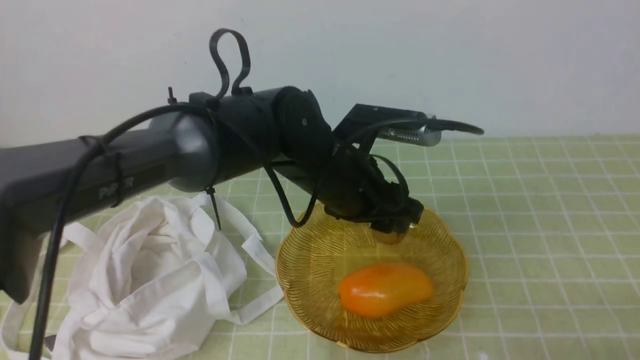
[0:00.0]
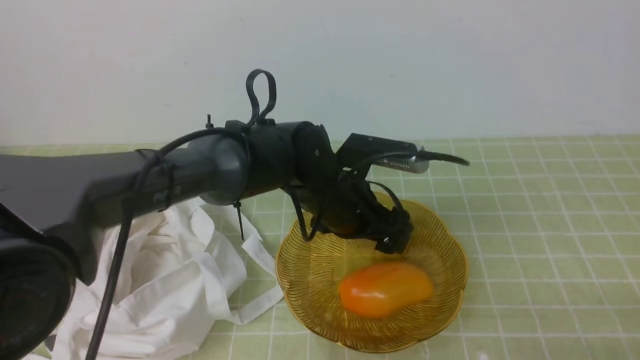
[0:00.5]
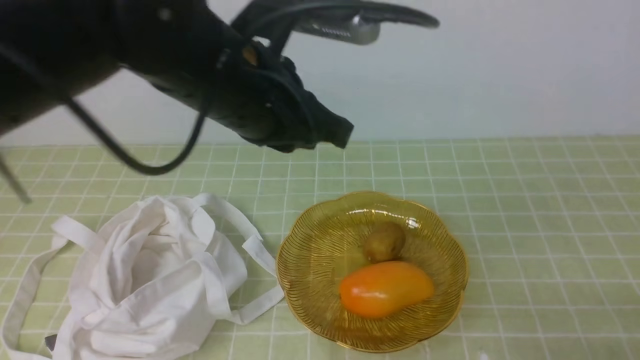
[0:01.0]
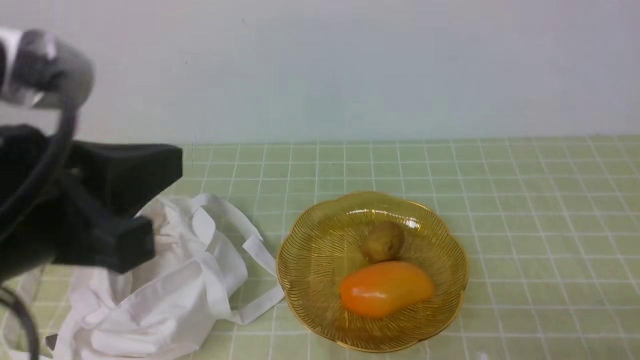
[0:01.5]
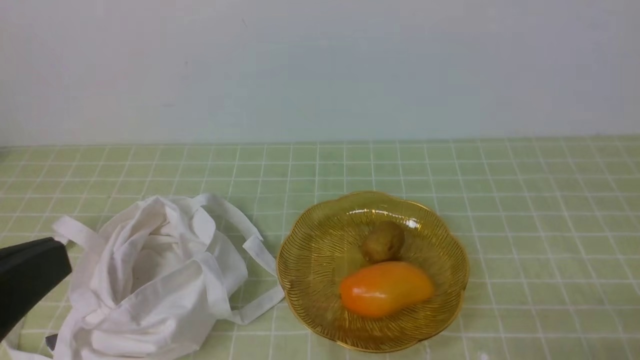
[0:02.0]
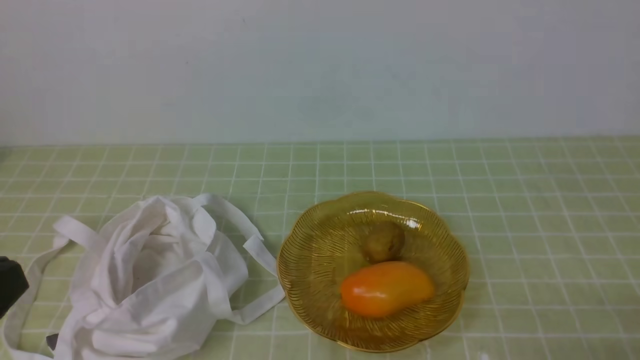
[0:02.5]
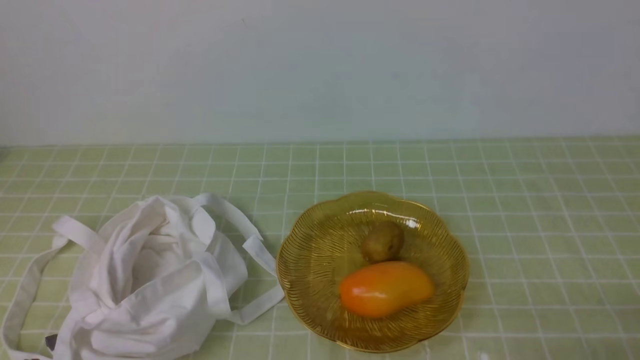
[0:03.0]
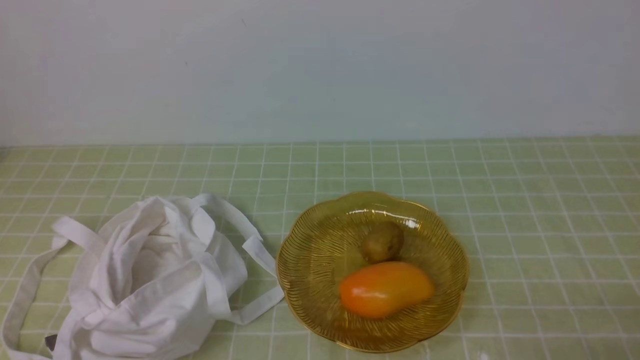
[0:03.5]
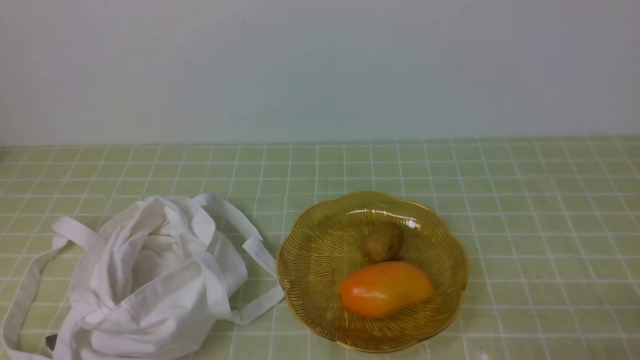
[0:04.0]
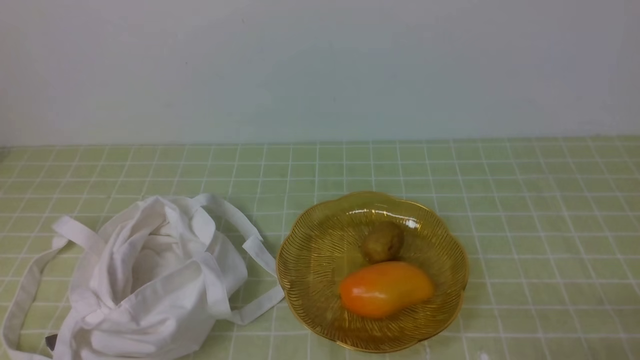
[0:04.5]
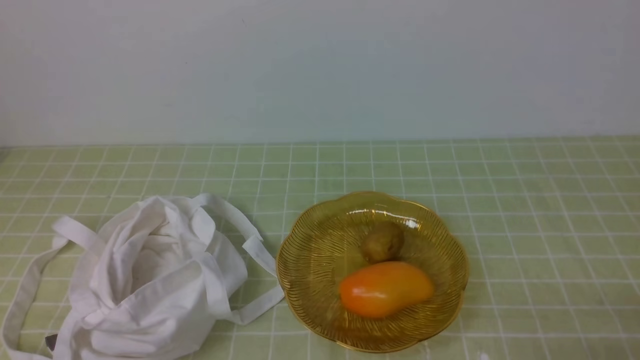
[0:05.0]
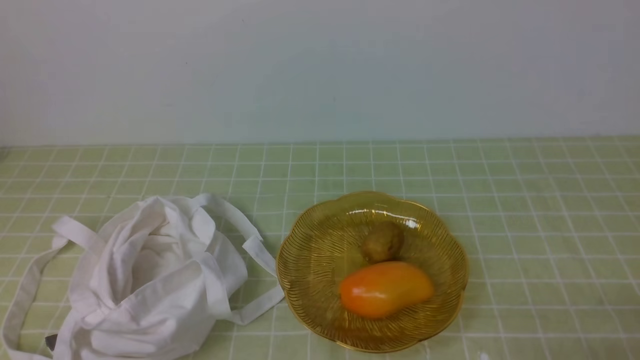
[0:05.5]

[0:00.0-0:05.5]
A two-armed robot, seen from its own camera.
0:00.0 to 0:02.0: The left gripper is displaced backward, to the left and upward by about 40 cm, and closes up.
0:02.0 to 0:03.5: The left gripper heads downward, covering approximately 20 cm.
0:03.5 to 0:05.5: Neither gripper changes place.

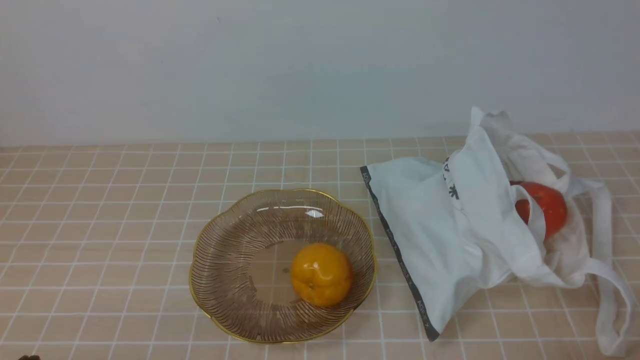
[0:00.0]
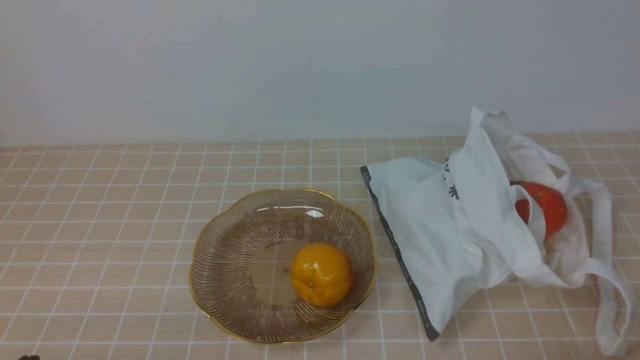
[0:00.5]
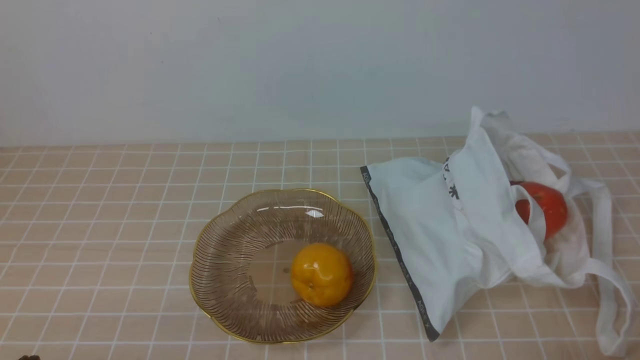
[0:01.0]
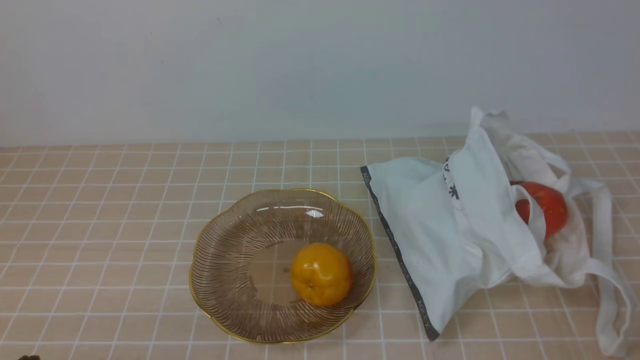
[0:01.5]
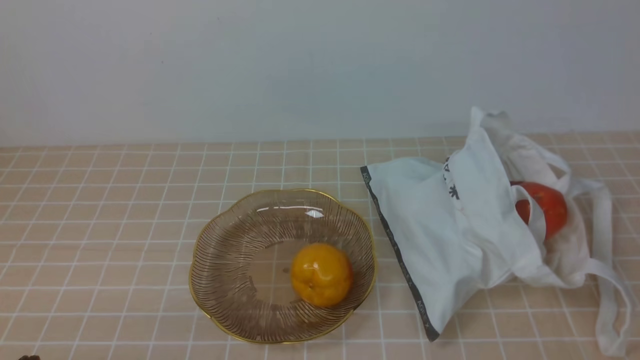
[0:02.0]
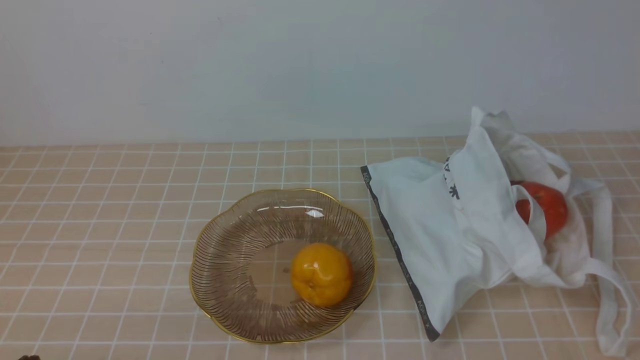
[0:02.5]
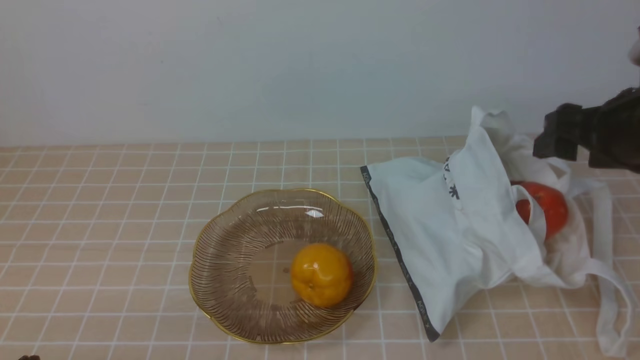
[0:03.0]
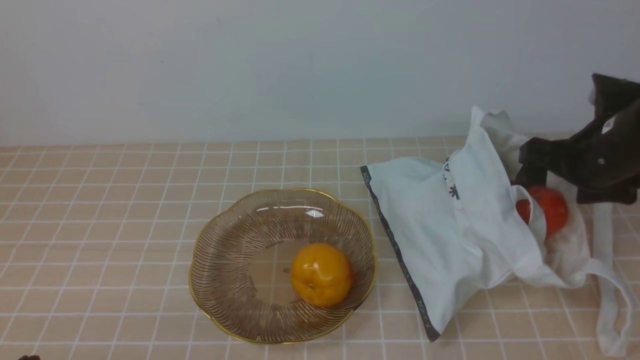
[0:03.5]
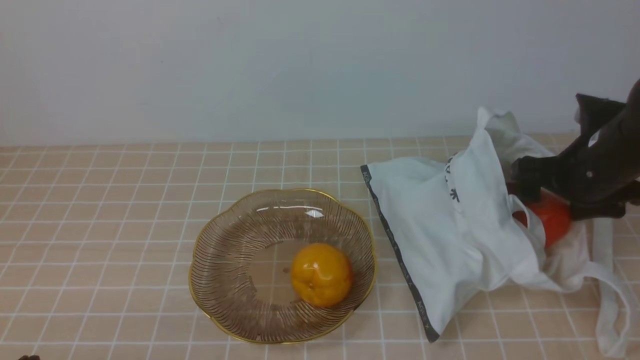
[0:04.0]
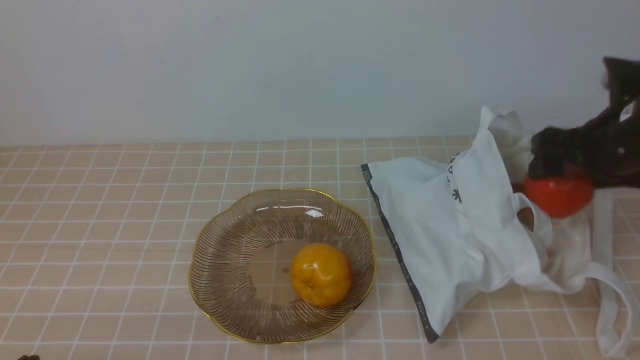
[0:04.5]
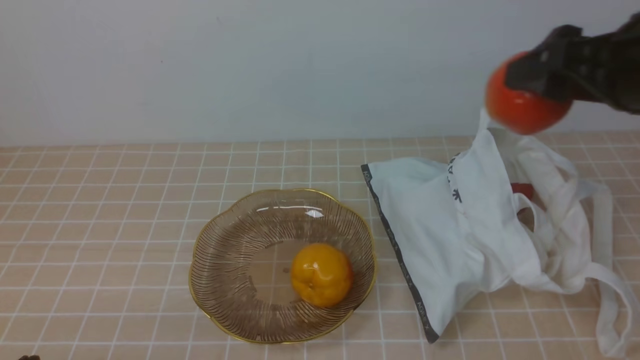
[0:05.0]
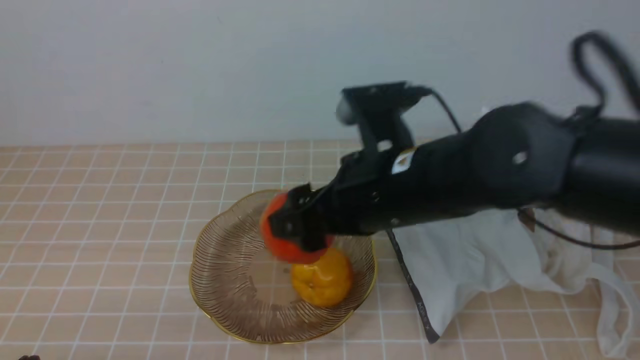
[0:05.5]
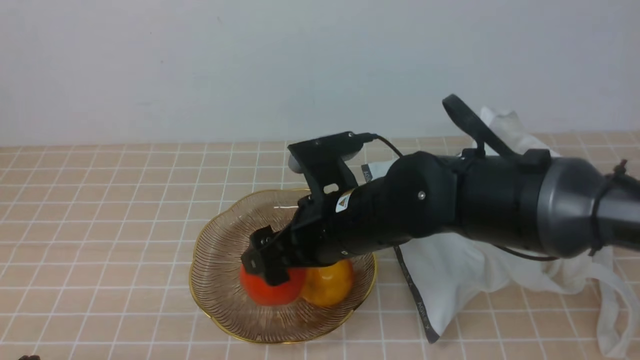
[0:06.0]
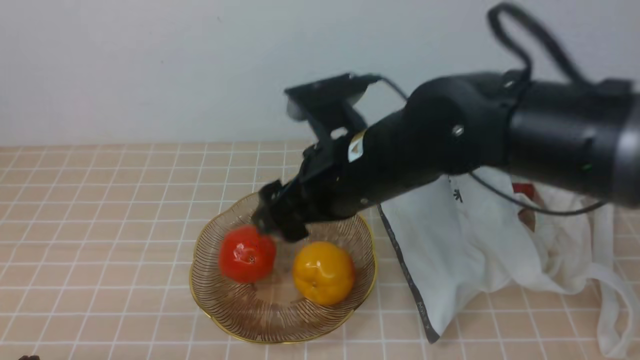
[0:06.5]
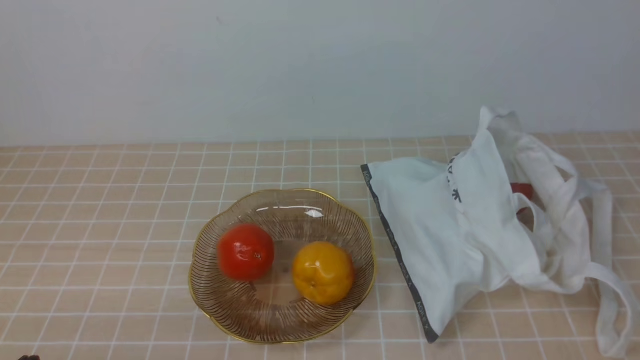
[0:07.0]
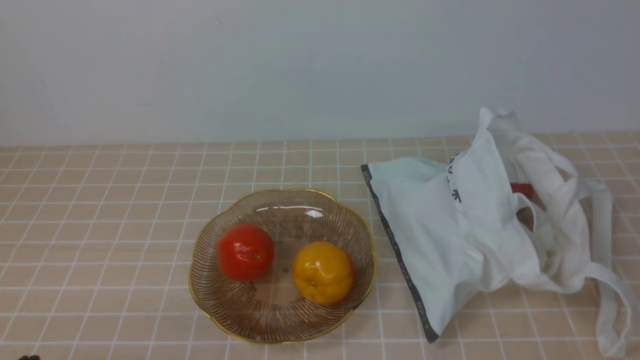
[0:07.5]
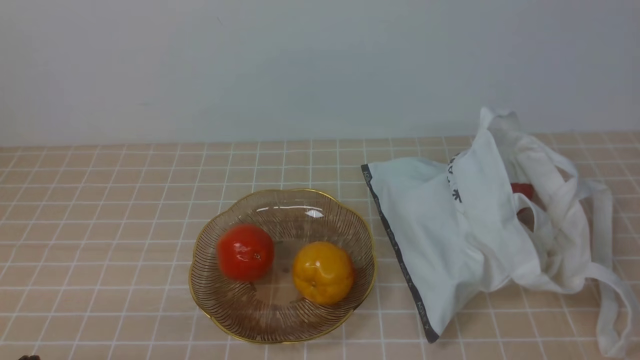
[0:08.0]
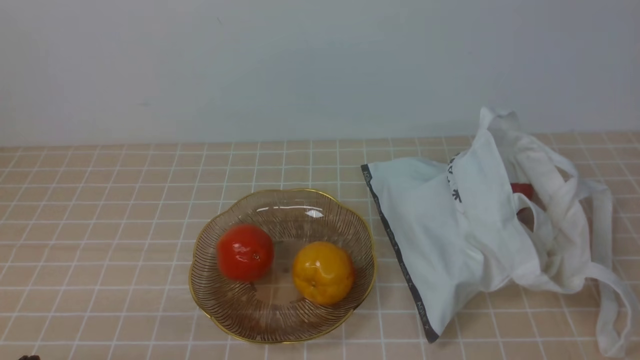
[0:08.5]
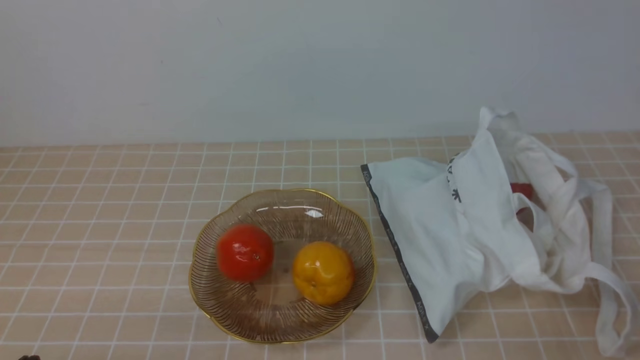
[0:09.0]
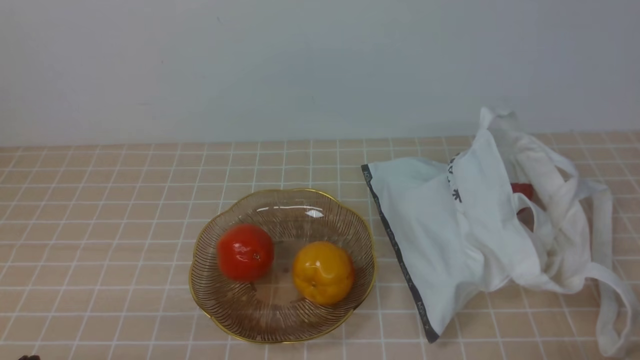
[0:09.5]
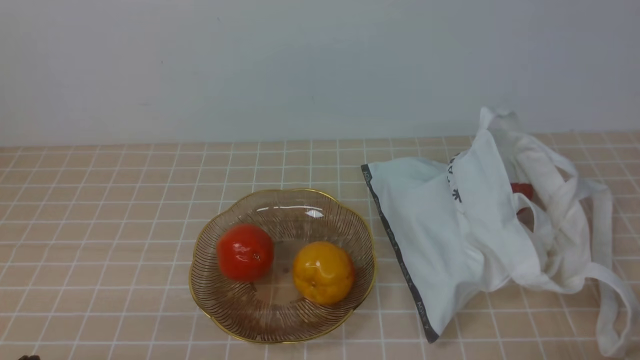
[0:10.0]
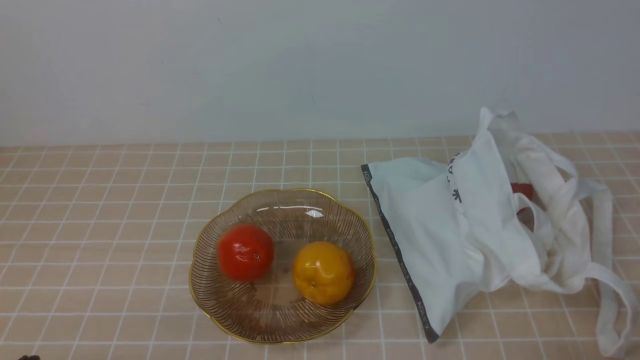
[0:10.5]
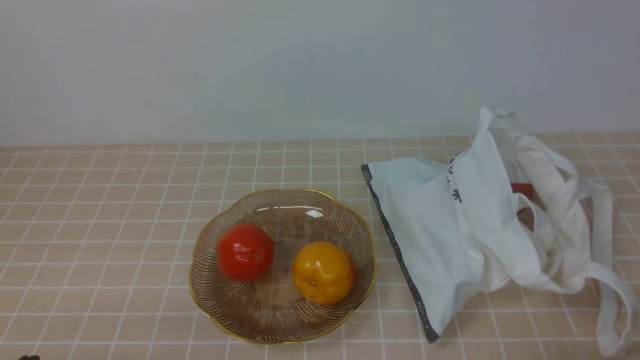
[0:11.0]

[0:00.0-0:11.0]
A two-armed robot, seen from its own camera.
Step, 0:00.0 to 0:04.0: use the right arm to grab a pomegranate from the bag.
Step, 0:04.5 to 0:06.0: use the right arm to put the pomegranate into the empty plate on the left.
0:02.0 to 0:03.5: The right gripper goes about 30 cm forward, and opens.
0:03.5 to 0:05.5: The right gripper travels to the left by some 20 cm.
0:05.5 to 0:07.5: The right gripper heads to the right and backward, covering about 35 cm, and closes up.
